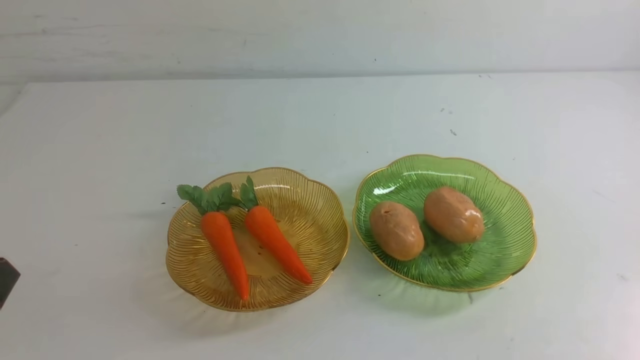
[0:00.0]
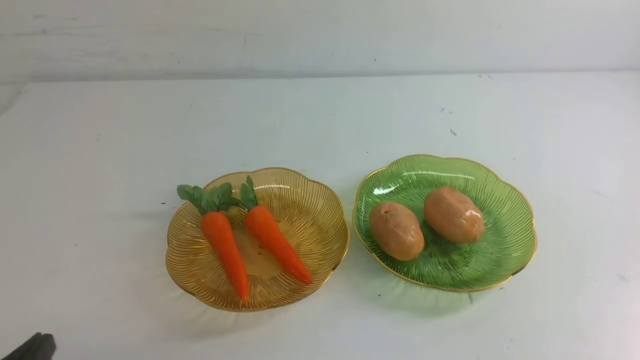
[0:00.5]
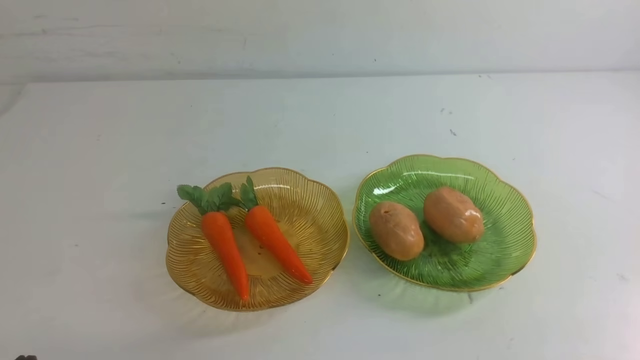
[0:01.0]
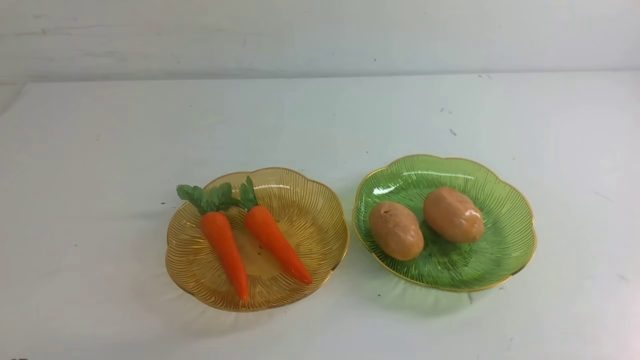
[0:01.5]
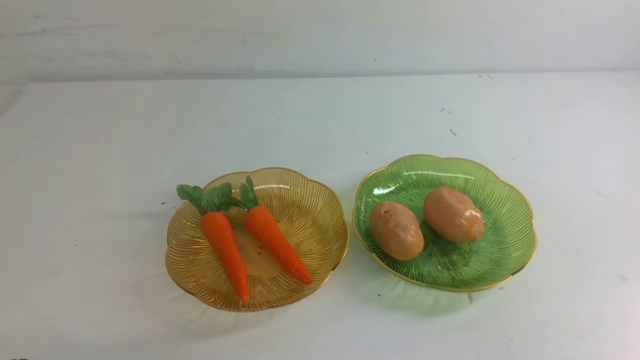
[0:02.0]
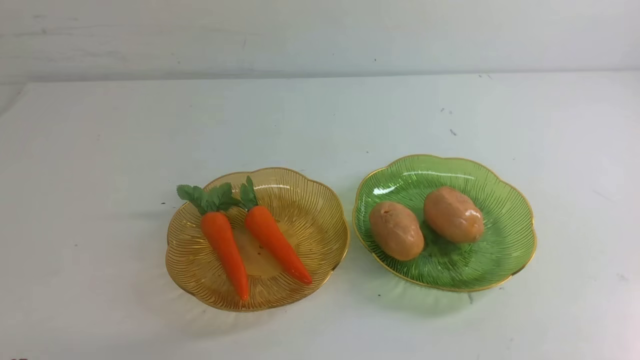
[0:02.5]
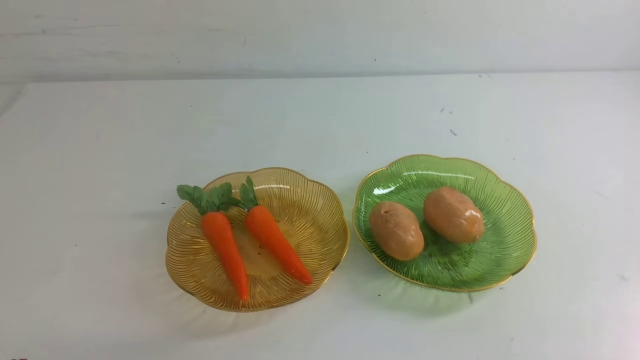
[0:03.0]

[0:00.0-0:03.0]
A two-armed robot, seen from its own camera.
0:01.5 to 0:03.0: Both grippers stay put.
